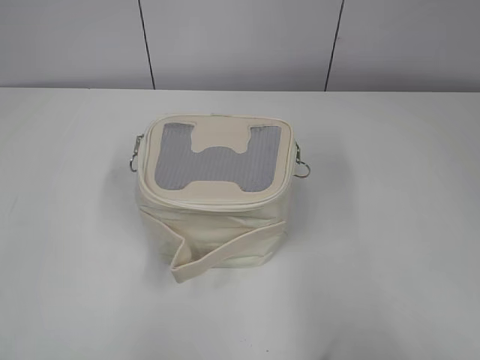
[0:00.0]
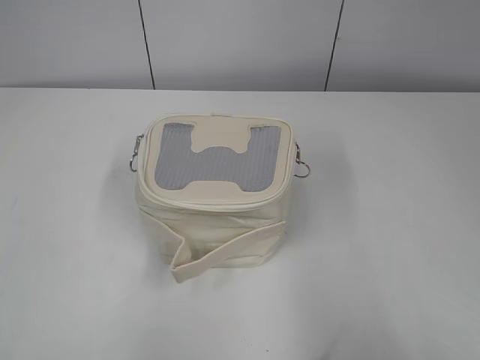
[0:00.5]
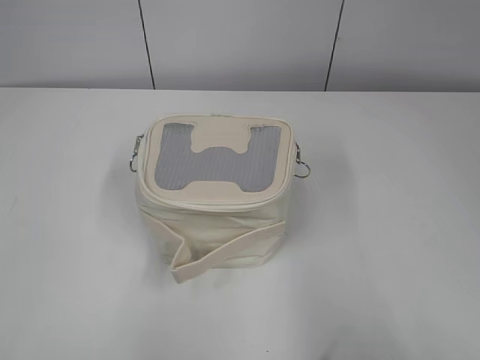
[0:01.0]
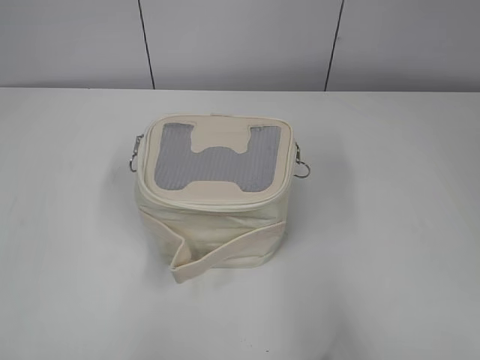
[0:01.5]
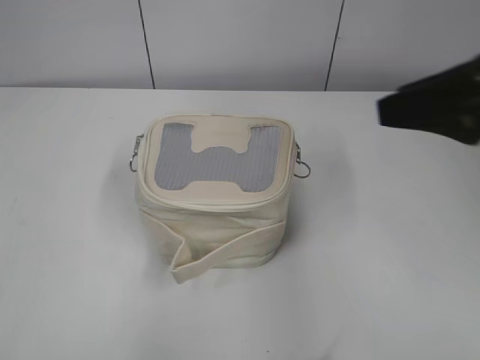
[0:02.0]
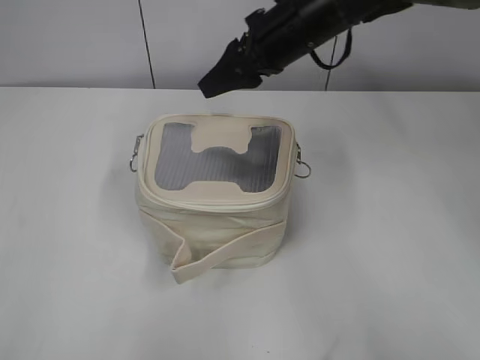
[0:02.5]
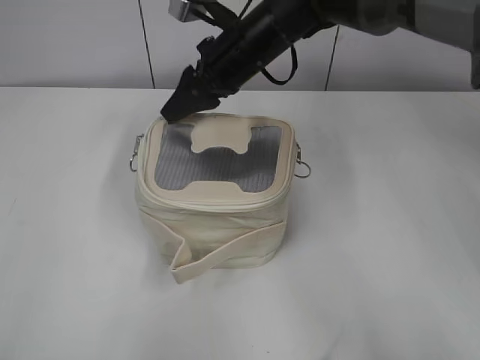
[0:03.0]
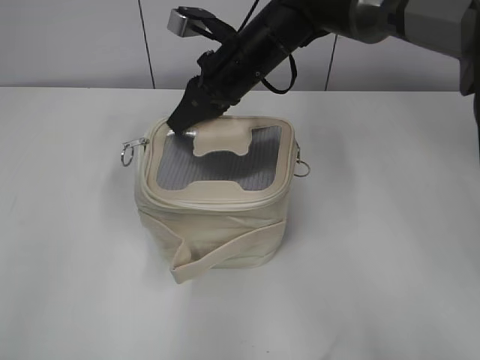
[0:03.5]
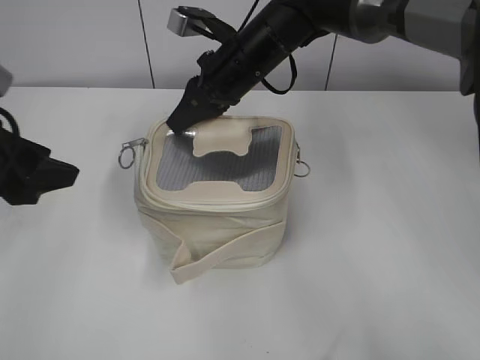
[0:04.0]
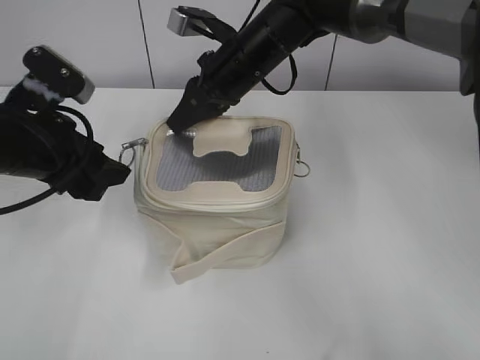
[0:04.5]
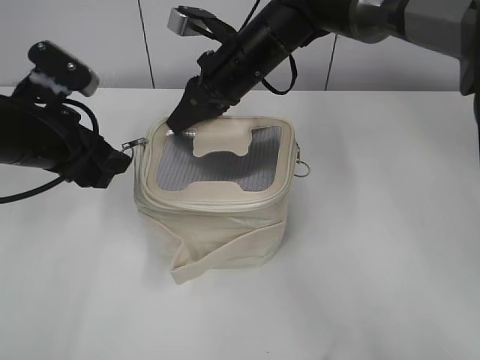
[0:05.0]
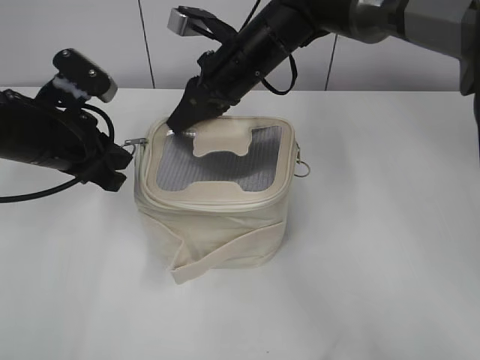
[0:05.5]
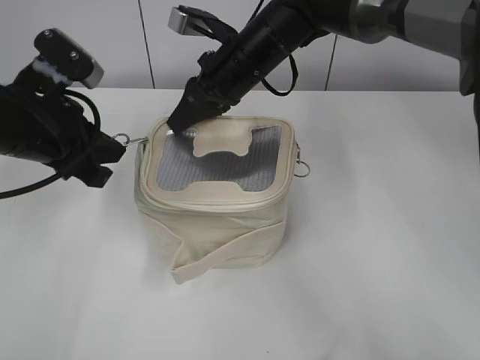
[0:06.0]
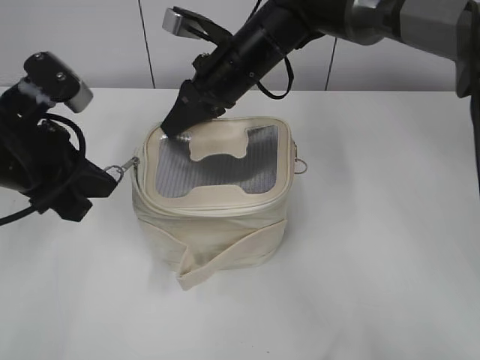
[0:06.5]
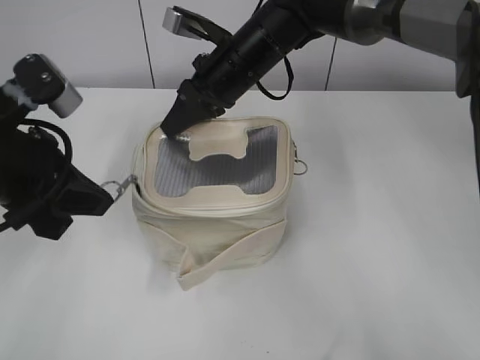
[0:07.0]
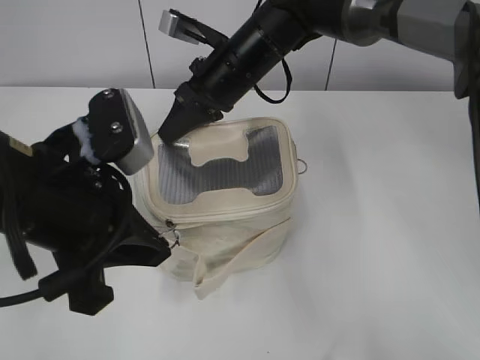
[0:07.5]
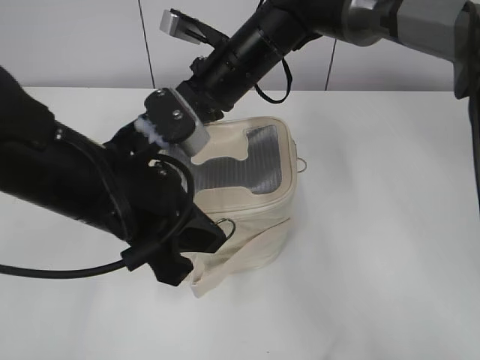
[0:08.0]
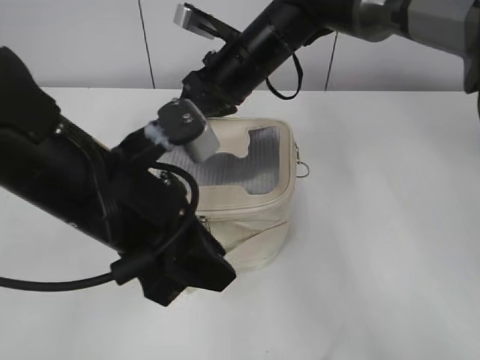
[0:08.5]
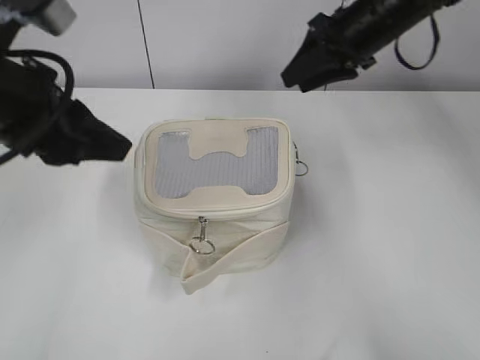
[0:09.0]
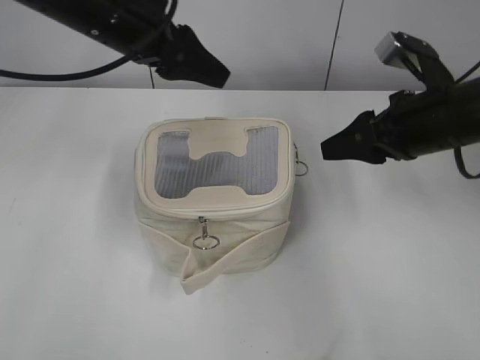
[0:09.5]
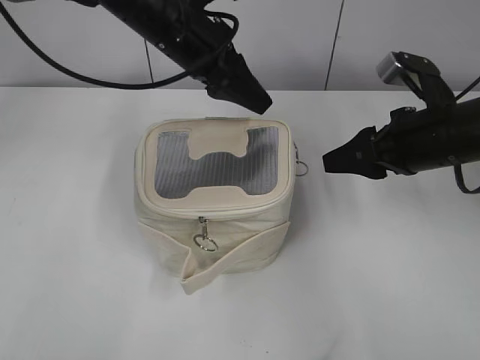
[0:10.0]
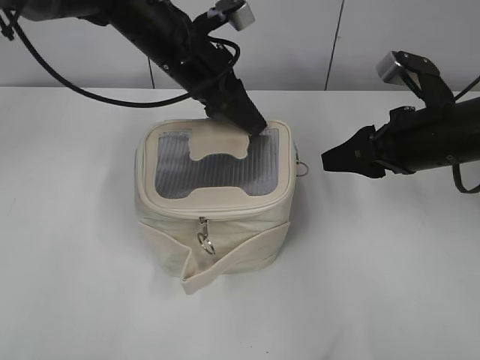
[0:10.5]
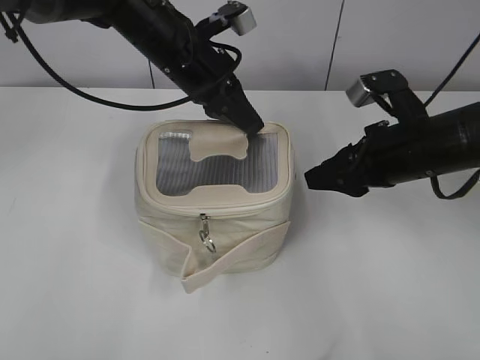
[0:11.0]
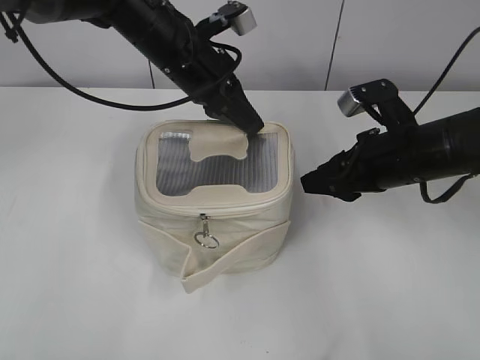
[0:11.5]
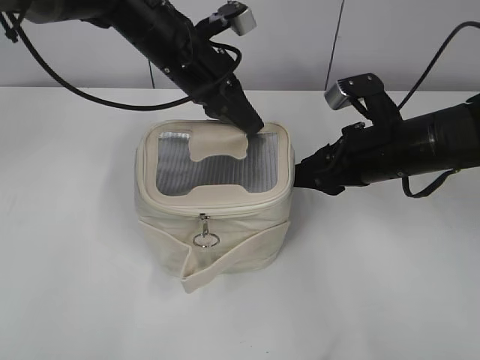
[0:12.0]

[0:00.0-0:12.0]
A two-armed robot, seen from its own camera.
Step, 0:00.0 to 0:08.0: Zip up the bag with your left hand.
0:02.0 to 0:04.0: The left gripper is displaced forward by about 25 cm, and opens its fingers. The right gripper travels forward, to the left and downward by some 35 cm, and closes up.
0:04.0 to 0:06.0: The left gripper goes about 5 cm to the right, and closes.
0:06.0 to 0:08.0: The left gripper is displaced to the right and backward by about 10 cm.
0:08.0 to 0:10.0: The right gripper goes about 25 cm to the right and backward, and opens its fingers. The left gripper moves forward, approximately 20 cm, and opens.
0:10.0 to 0:12.0: The left gripper closes its fingers.

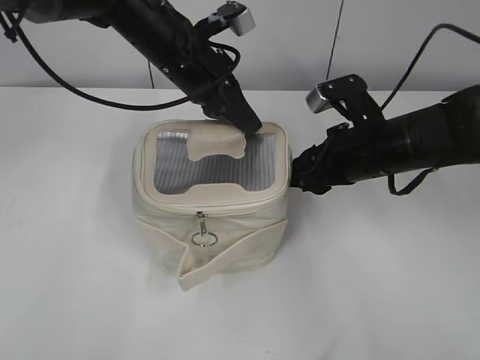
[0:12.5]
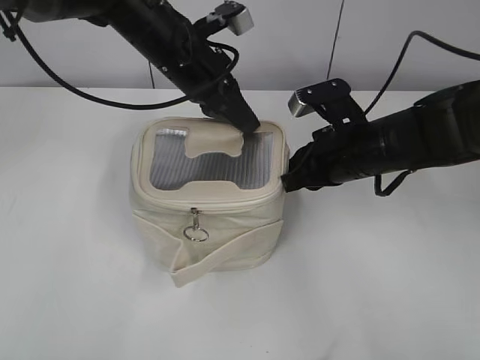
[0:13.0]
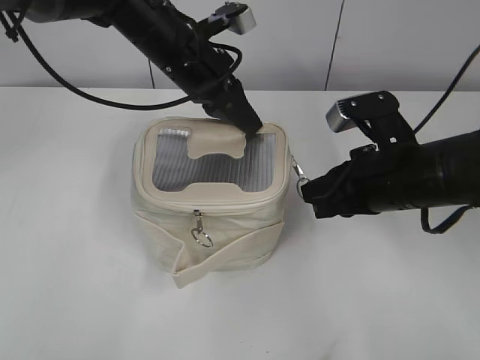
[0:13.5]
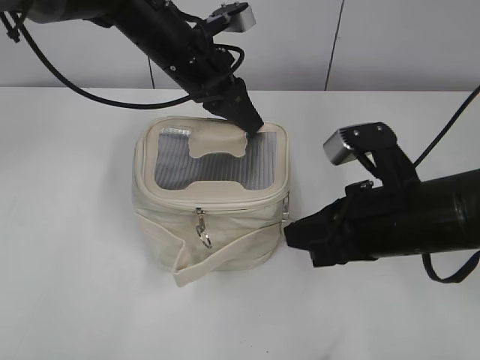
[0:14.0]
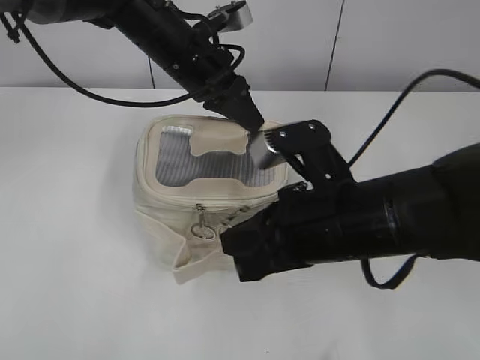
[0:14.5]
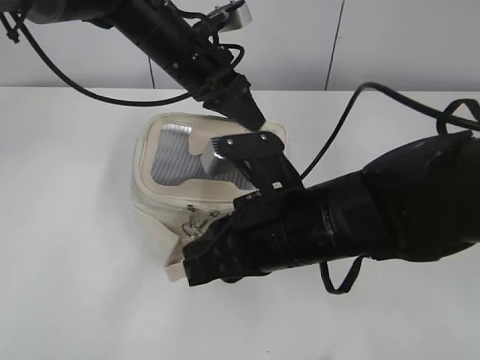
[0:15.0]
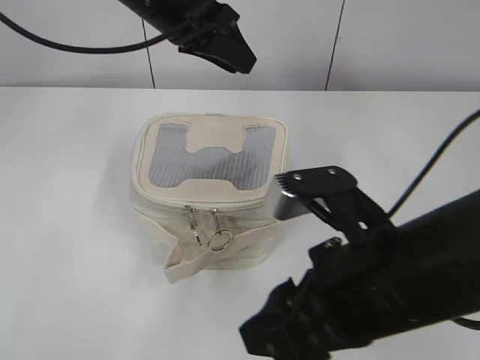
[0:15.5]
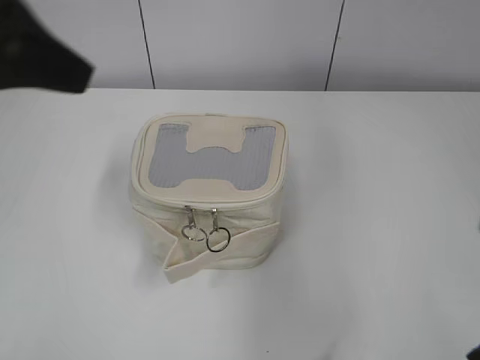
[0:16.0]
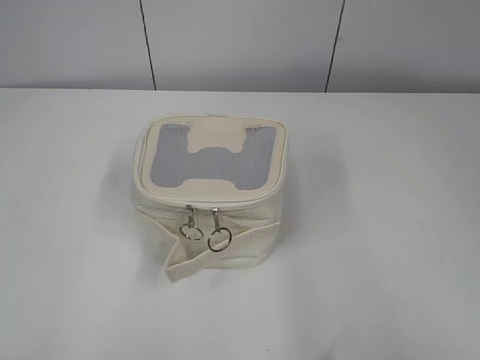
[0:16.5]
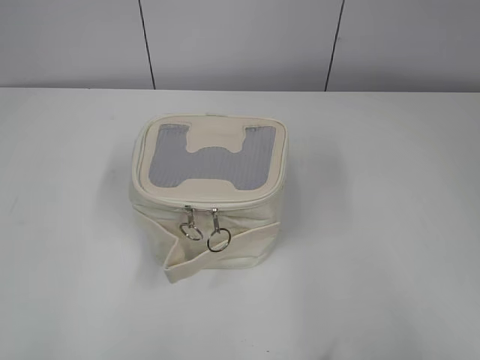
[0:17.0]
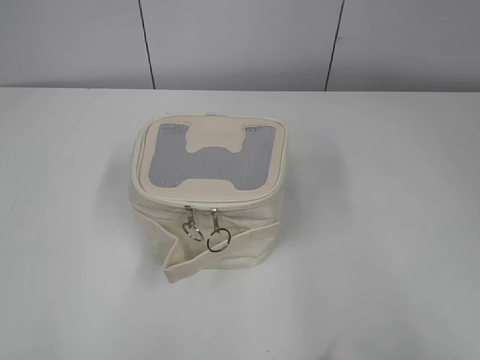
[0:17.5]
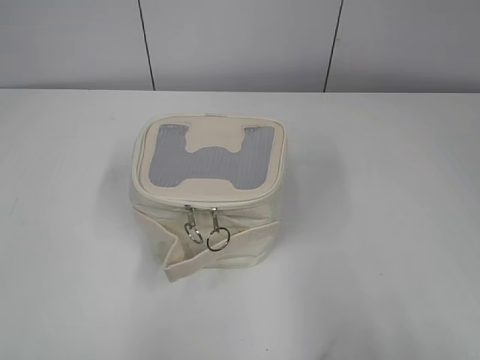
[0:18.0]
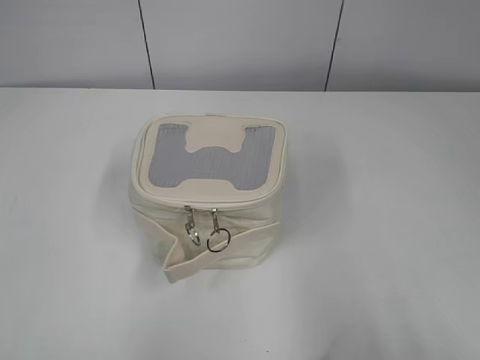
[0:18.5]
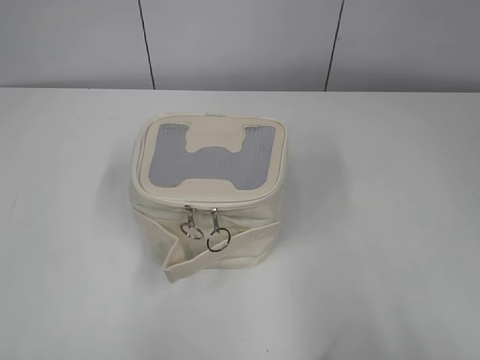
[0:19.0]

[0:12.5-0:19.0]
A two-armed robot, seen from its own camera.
Step, 0:12.5 to 0:15.0: Zip up the bag with your right hand.
0:12.5 to 0:14.5: The right gripper heads backward and to the left, covering some 15 cm, and closes up.
0:14.5 to 0:17.0: The right gripper heads to the right, backward and upward, covering approximately 30 cm, and opens up; the left gripper shifts approximately 50 cm backward and to the left, and opens its fingers.

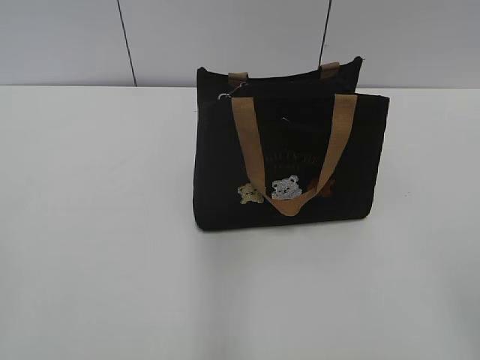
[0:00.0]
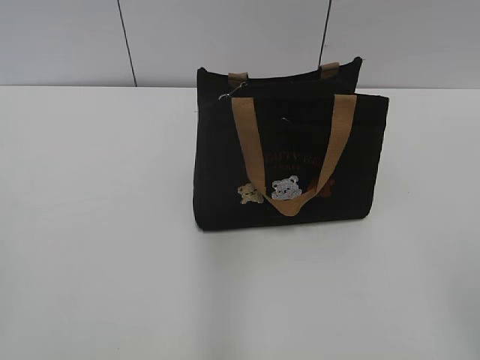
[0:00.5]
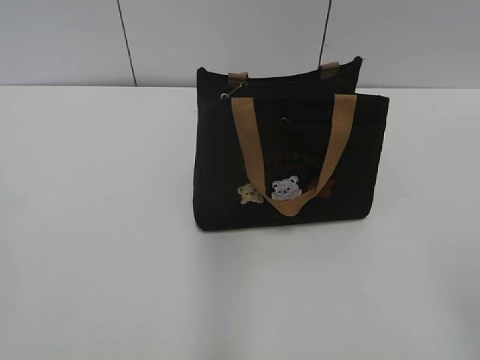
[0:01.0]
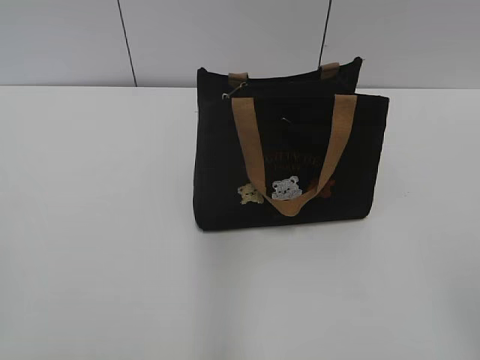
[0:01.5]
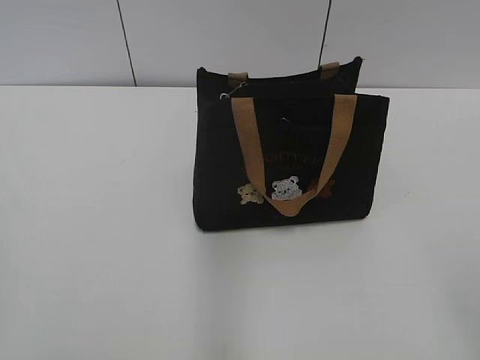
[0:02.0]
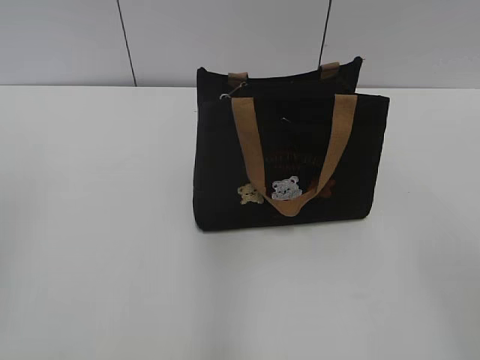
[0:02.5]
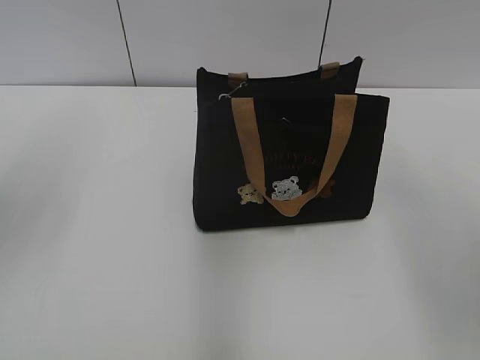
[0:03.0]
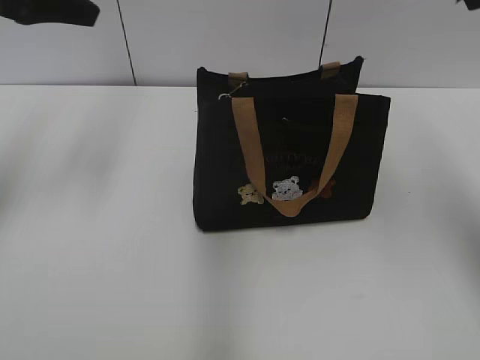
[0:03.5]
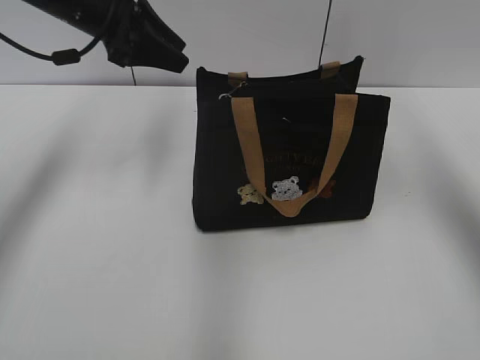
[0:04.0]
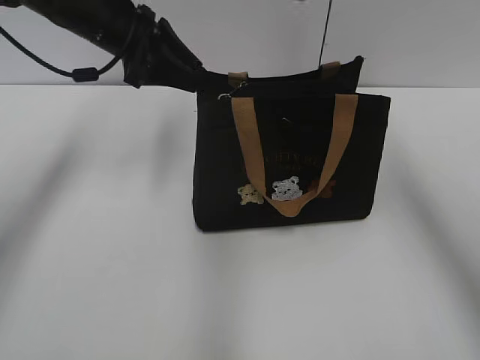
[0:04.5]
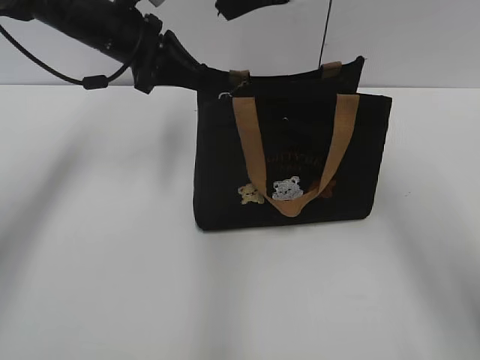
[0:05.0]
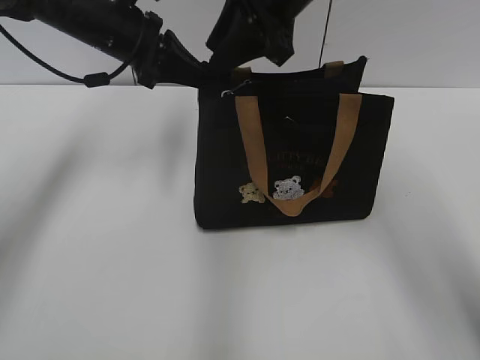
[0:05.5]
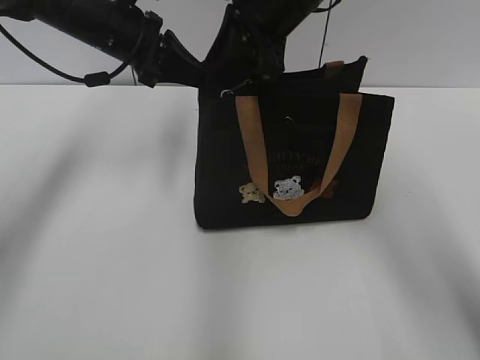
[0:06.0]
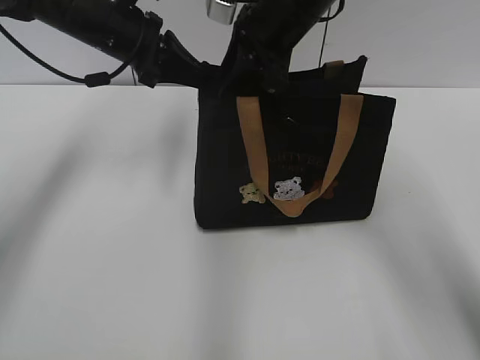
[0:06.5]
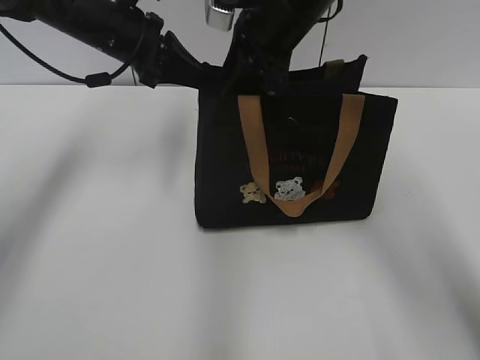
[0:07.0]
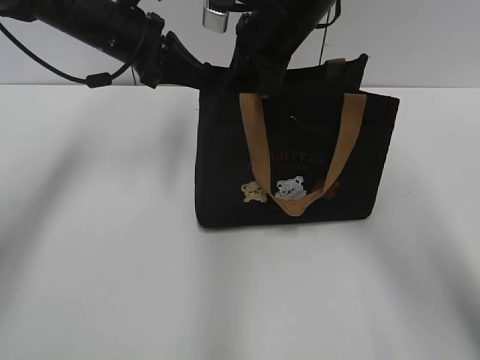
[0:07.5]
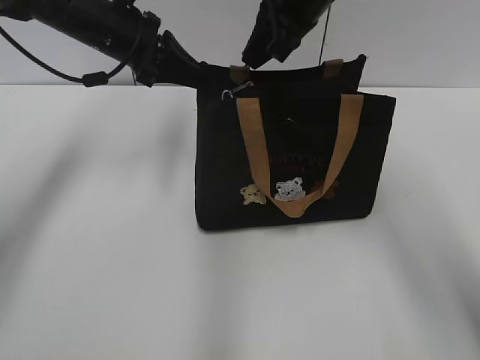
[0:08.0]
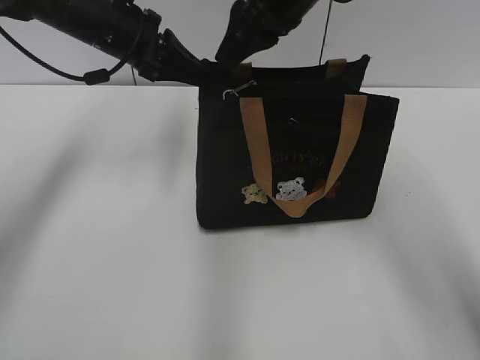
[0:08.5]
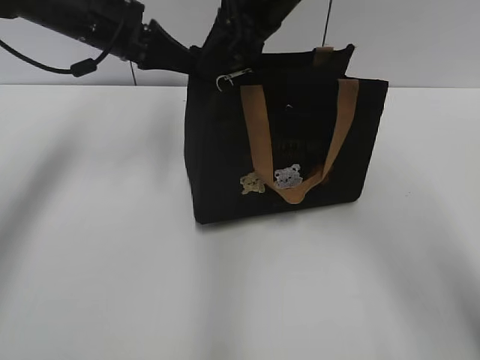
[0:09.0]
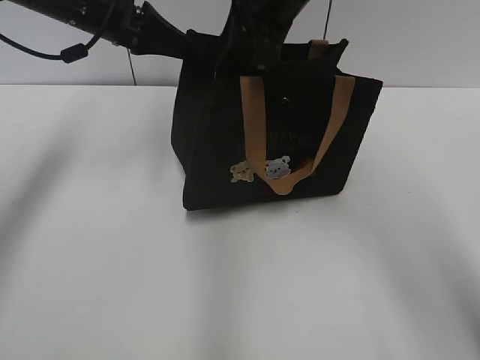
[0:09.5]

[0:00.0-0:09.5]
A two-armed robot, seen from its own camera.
0:02.0 to 0:04.0: The right gripper moves forward and upward, roughly 35 cm. Meanwhile the left gripper moves forward, roughly 40 cm.
0:04.0 to 0:05.5: The right gripper goes approximately 20 cm to the left and downward, while the left gripper moves some 5 cm, and closes its fingers.
0:05.5 to 0:07.5: The right gripper travels downward by roughly 5 cm, and closes.
0:07.5 to 0:09.5: The right gripper changes place by approximately 5 cm, and opens.
